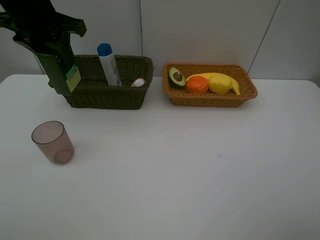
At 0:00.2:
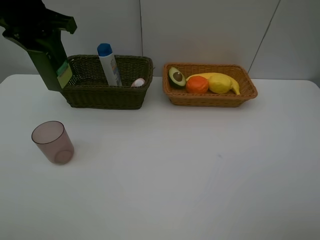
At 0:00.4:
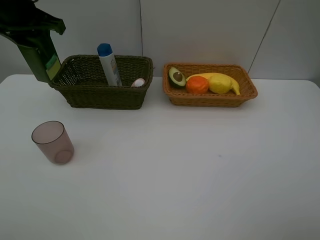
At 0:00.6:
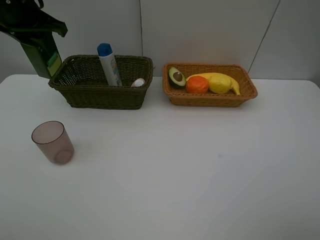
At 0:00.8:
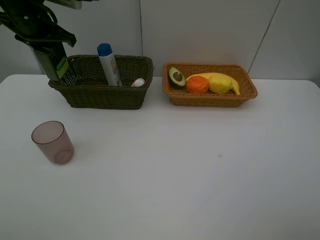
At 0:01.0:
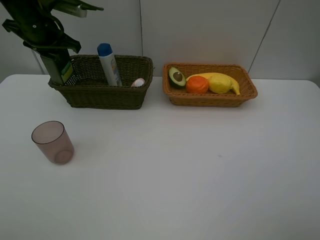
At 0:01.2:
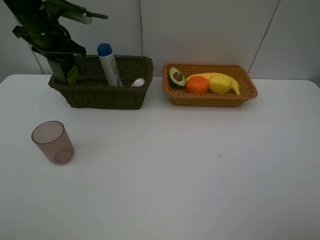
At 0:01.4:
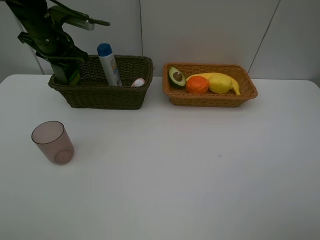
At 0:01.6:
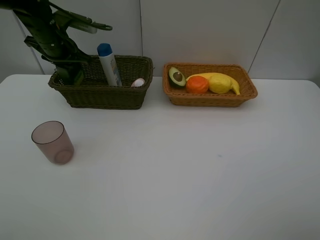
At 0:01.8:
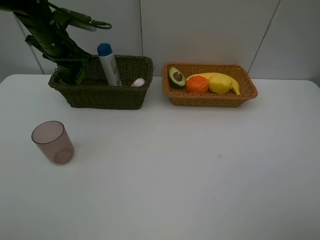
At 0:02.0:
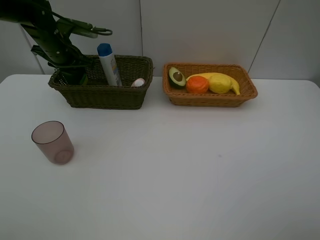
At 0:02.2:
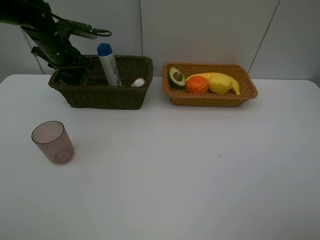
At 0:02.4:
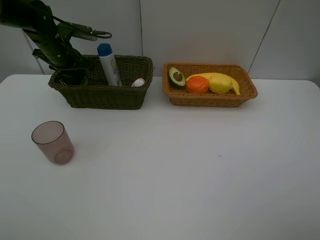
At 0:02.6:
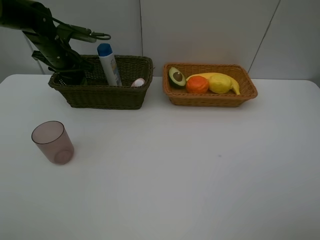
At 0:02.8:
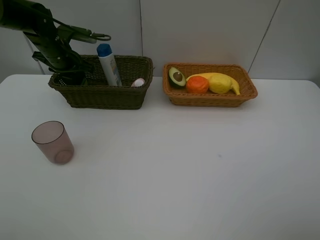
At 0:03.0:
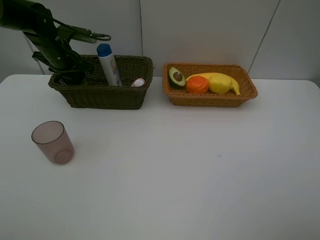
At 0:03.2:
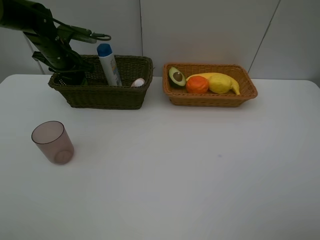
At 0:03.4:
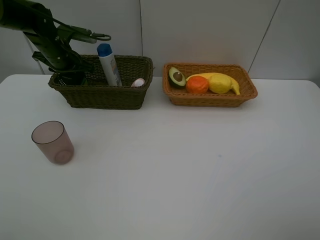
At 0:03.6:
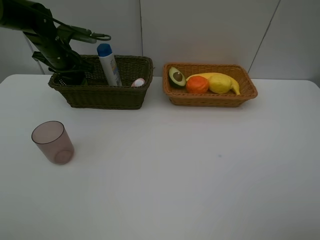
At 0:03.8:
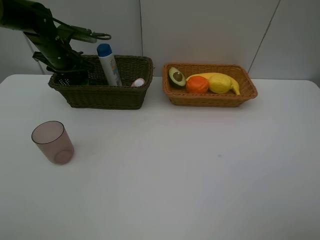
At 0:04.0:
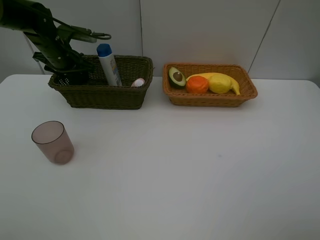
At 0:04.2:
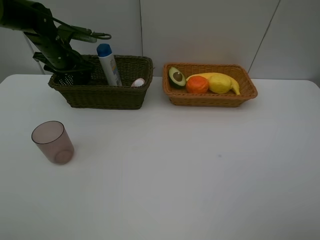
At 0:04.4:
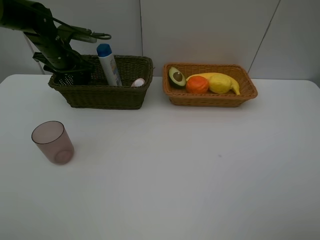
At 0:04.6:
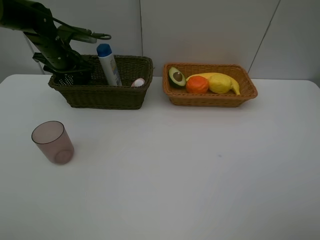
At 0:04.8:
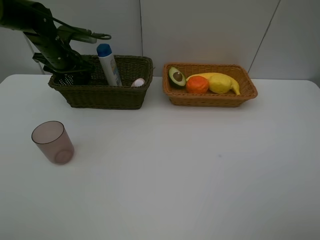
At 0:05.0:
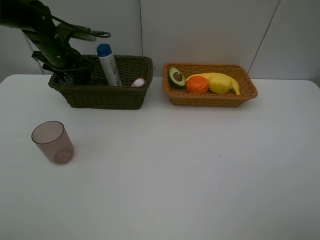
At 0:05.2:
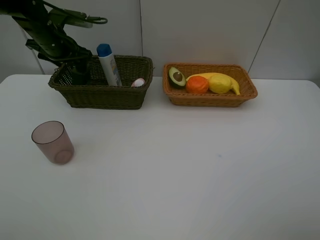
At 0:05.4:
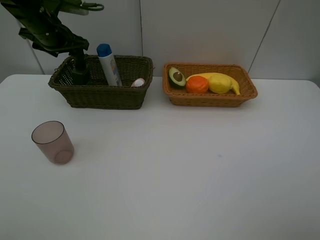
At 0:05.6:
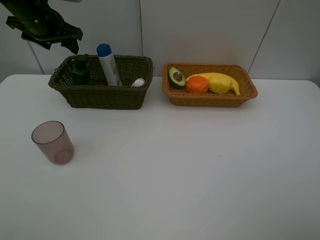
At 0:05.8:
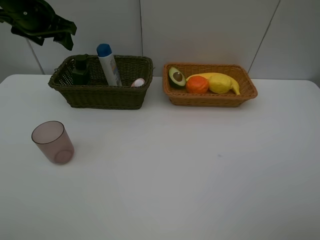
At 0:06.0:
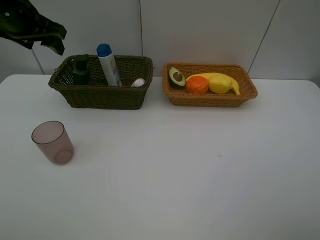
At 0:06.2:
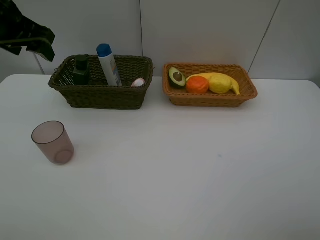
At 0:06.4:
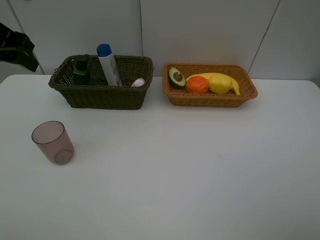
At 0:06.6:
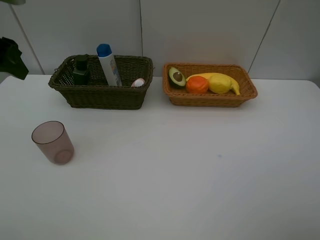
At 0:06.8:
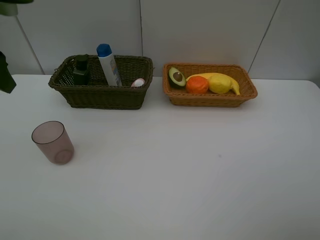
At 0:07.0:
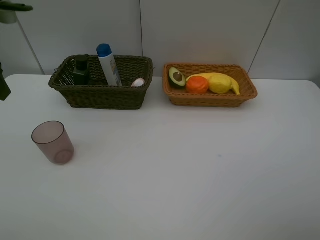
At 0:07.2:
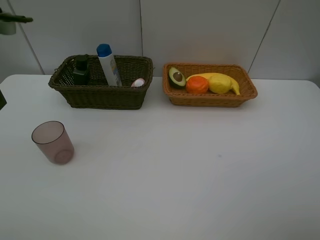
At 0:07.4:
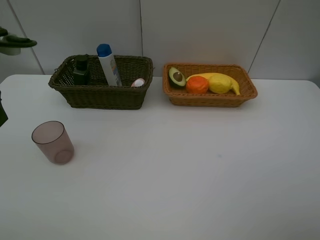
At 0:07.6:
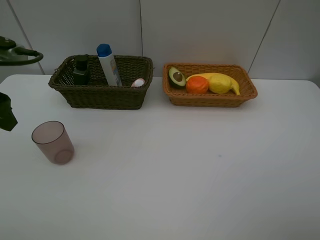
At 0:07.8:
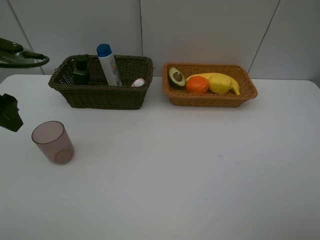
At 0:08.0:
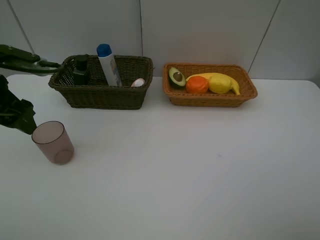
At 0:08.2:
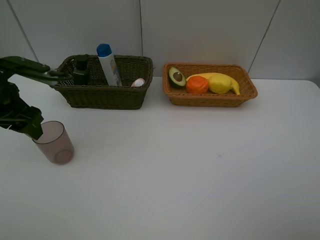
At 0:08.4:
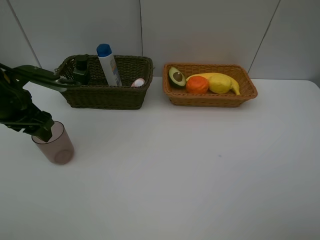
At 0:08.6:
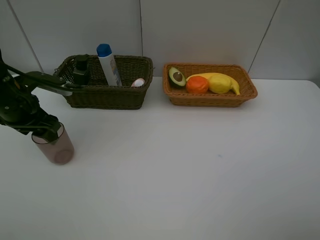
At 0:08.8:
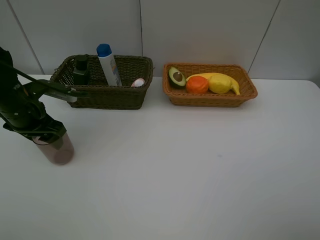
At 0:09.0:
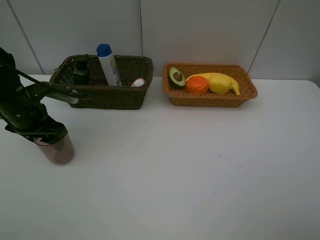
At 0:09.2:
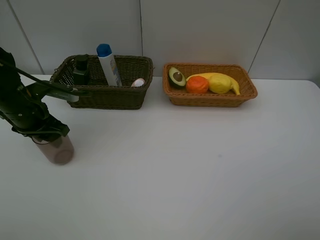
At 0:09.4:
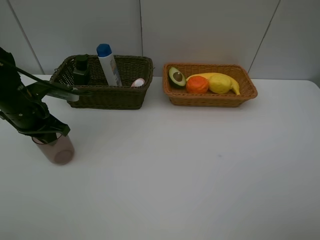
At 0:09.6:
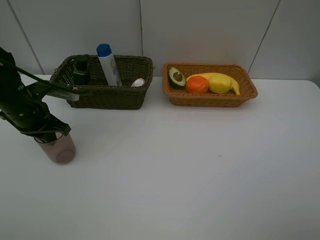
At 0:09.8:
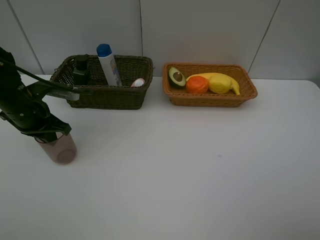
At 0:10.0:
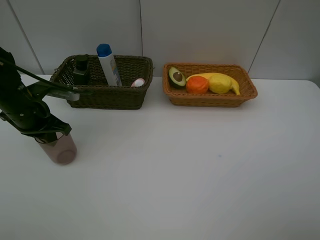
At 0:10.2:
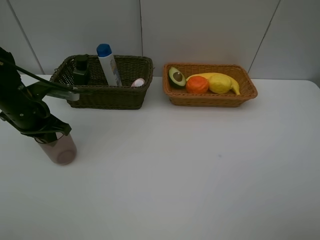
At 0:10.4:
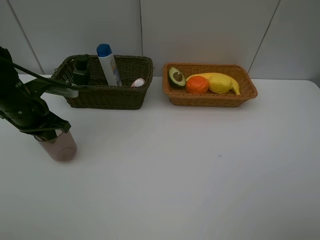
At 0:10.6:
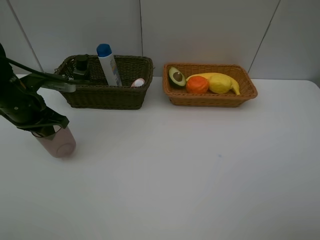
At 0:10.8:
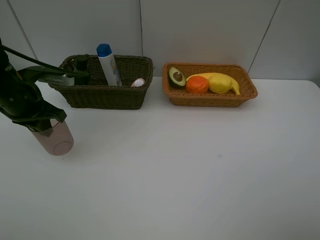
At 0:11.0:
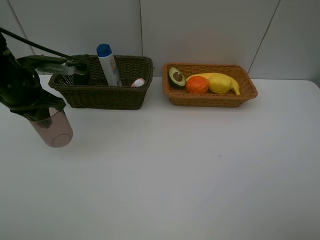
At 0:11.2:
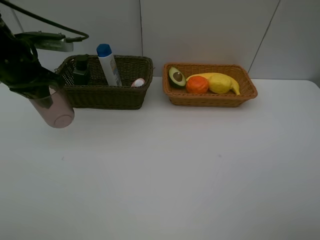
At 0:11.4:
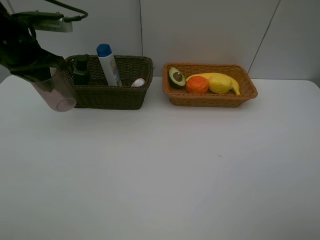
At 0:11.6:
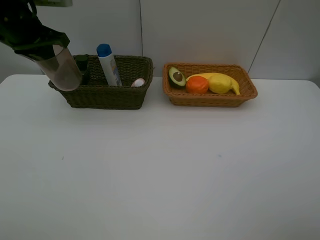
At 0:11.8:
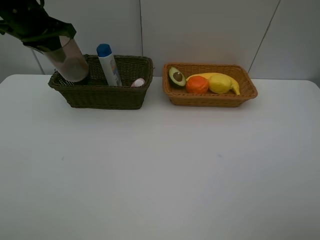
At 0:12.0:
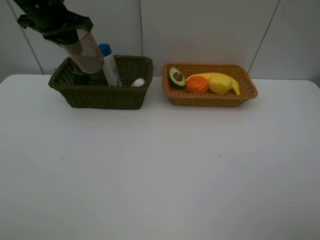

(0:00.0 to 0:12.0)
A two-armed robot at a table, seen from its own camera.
Task of the whole recording: Place multiple objects separately in different baskets.
Step, 0:00.0 - 0:05.4: Place the hard facial cleanser in the dark basket with left gripper.
Step, 0:05.6 - 0:10.6: Pick up the red cup with left gripper.
0:00.0 - 0:01.6: The left gripper goes roughly 15 cm downward and forward.
0:01.6 - 0:03.0: The grippers stay close to where they were, moving slightly.
0:04.4 - 0:06.0: The left gripper is displaced upward and backward by roughly 15 cm.
0:06.0 - 0:07.6: The left gripper travels backward by roughly 15 cm.
0:07.6 - 0:09.0: The left gripper goes about 15 cm downward and forward.
0:09.0 - 0:10.4: The left gripper closes.
0:10.4 - 0:12.0: The left gripper goes roughly 20 cm upward, forward and to the right.

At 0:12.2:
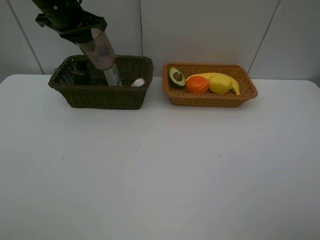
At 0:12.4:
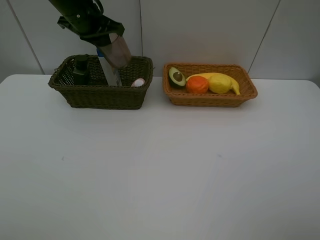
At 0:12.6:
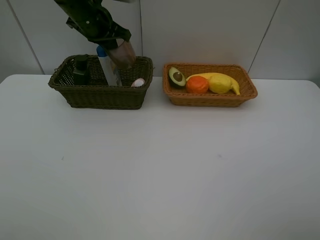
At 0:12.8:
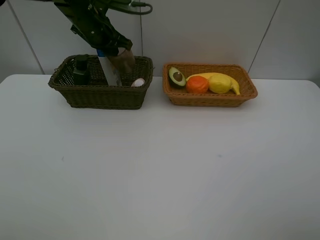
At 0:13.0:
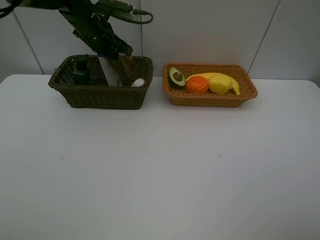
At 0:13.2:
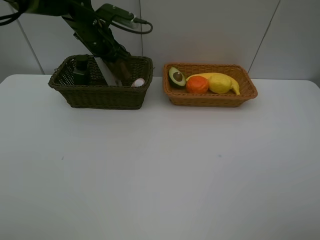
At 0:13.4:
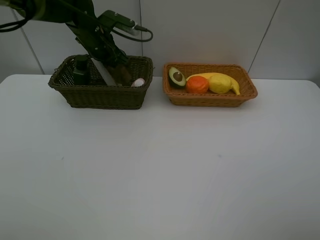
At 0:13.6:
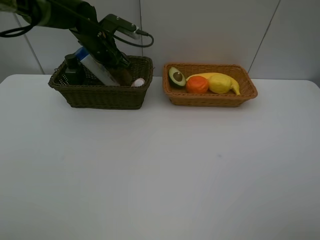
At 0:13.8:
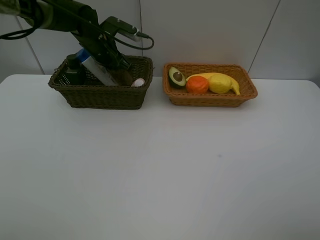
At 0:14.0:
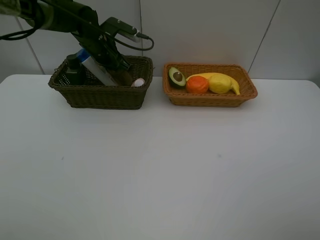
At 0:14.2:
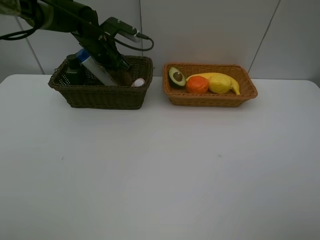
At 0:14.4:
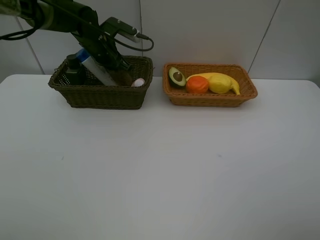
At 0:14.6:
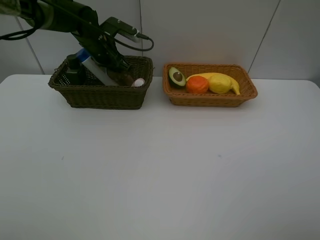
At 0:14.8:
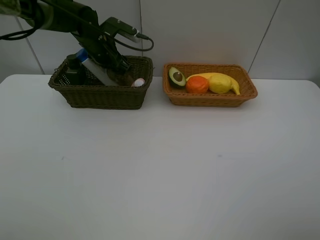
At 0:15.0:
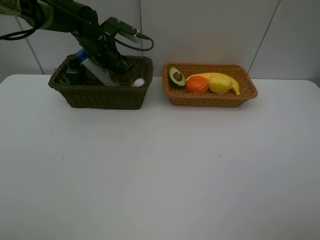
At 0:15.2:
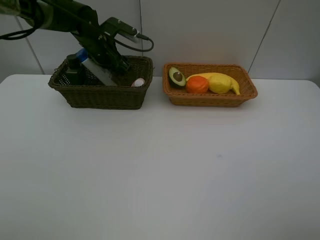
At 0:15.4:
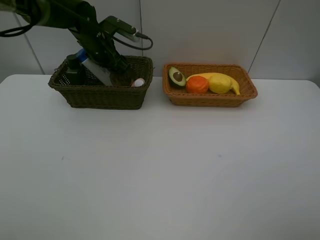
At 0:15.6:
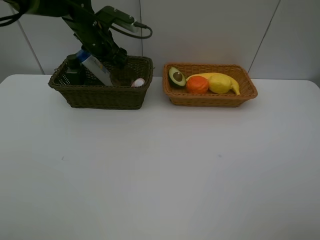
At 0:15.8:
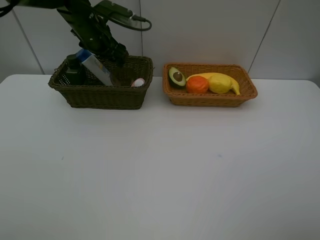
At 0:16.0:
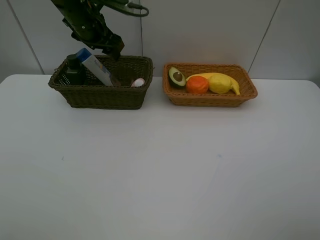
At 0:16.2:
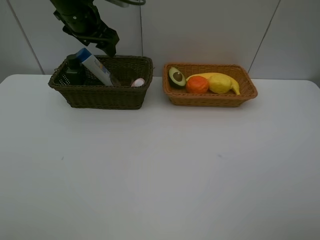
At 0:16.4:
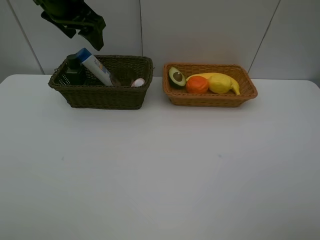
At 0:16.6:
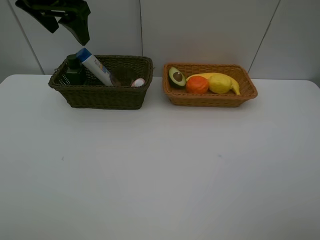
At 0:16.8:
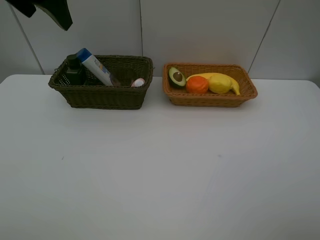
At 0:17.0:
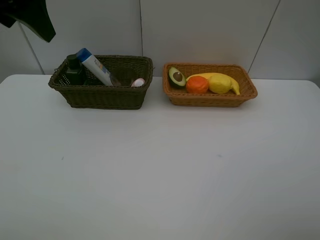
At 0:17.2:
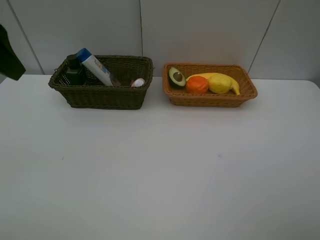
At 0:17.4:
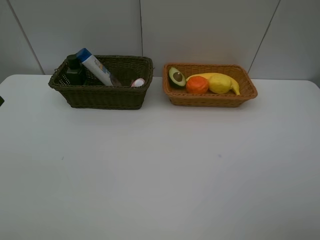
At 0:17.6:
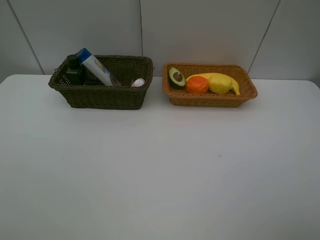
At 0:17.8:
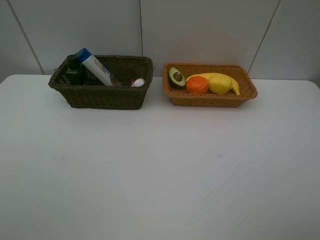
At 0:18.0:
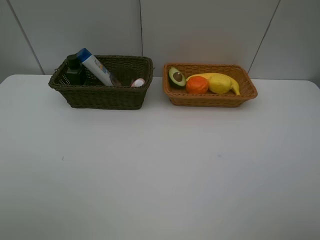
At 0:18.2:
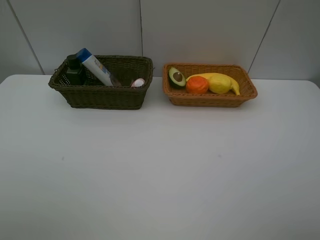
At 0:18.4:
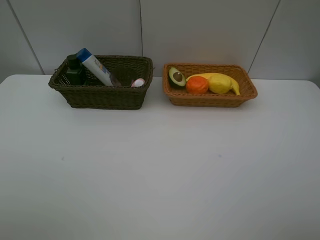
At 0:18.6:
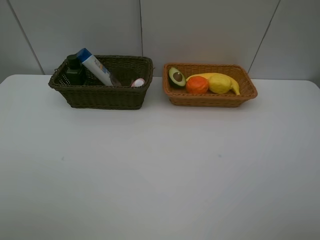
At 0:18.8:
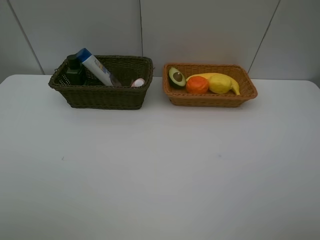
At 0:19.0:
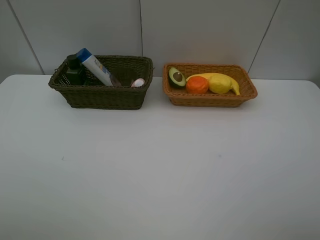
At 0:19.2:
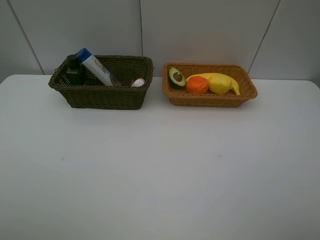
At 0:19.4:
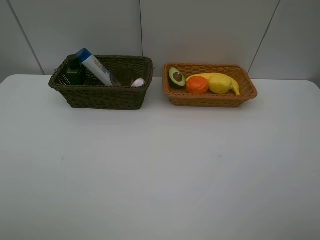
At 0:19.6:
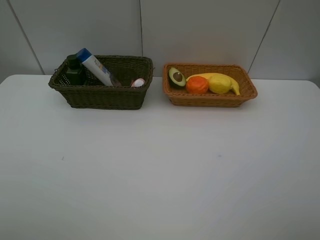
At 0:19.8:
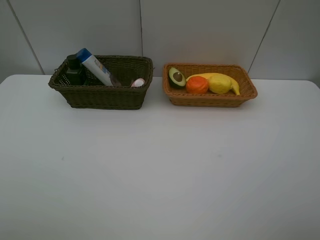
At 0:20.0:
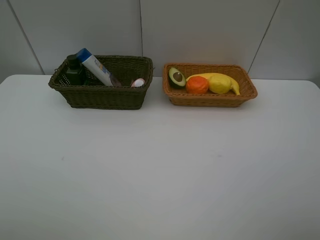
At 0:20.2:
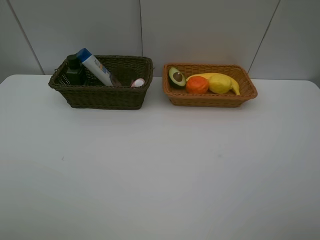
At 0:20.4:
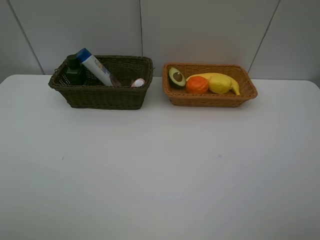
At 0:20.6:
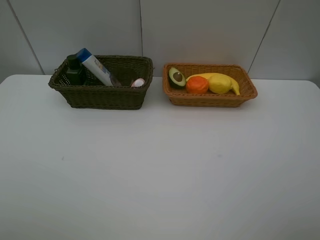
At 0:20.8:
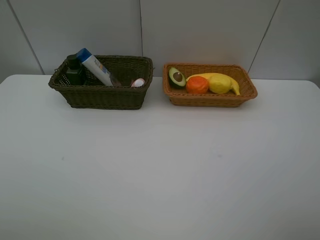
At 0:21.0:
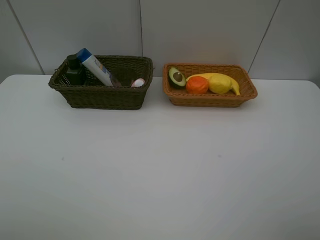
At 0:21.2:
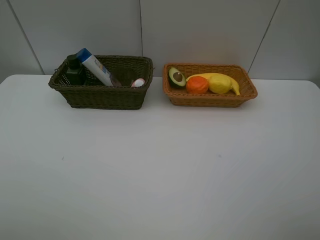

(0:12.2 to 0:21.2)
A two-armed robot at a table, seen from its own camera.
Task of the whole recording: Place multiple objects separately in different baskets.
Step, 0:12.2 - 0:15.6: Place the red cup in the dark basket with left gripper.
0:12.2 - 0:13.8: The left gripper shifts roughly 10 cm downward and forward.
0:15.2 - 0:16.6: The left gripper travels upward and backward by approximately 20 cm.
0:16.6 - 0:18.2: The left gripper heads backward, covering roughly 30 cm.
0:19.8 - 0:21.2: Both grippers stay about where they are.
